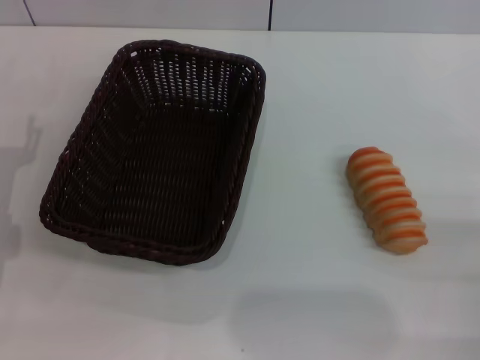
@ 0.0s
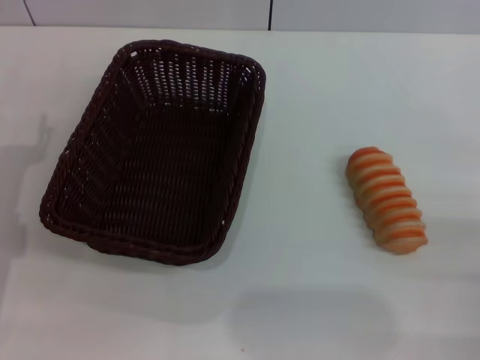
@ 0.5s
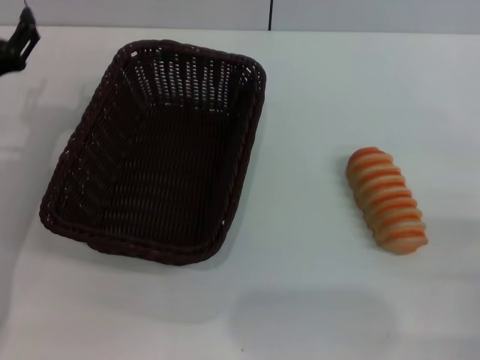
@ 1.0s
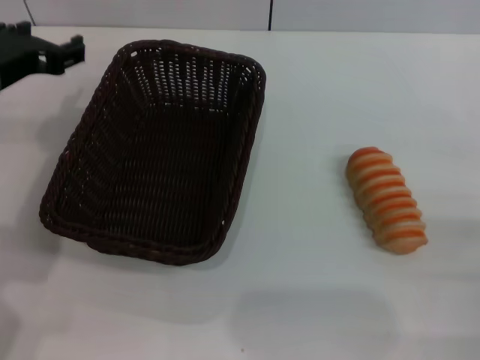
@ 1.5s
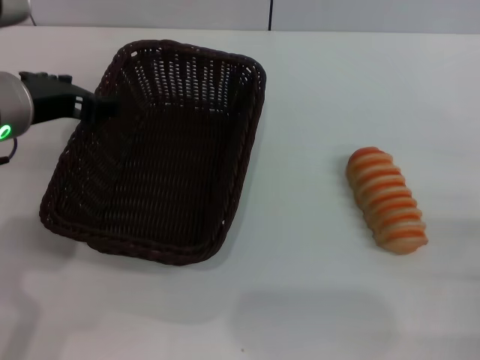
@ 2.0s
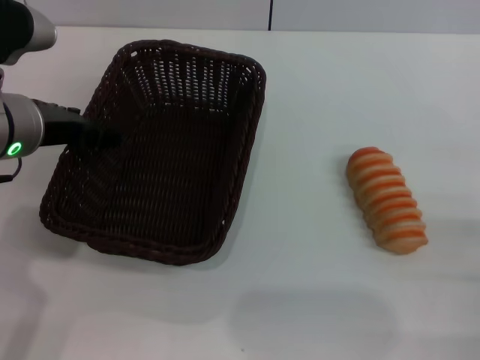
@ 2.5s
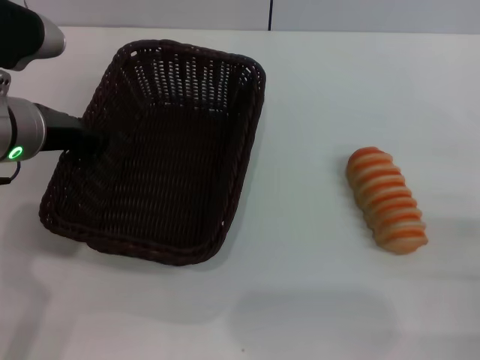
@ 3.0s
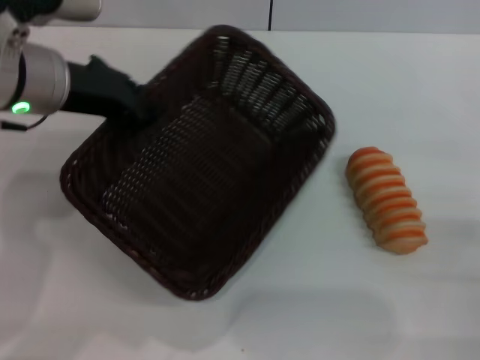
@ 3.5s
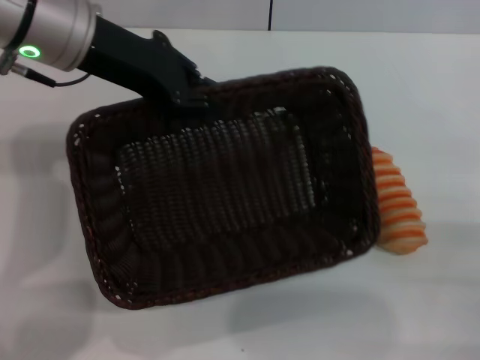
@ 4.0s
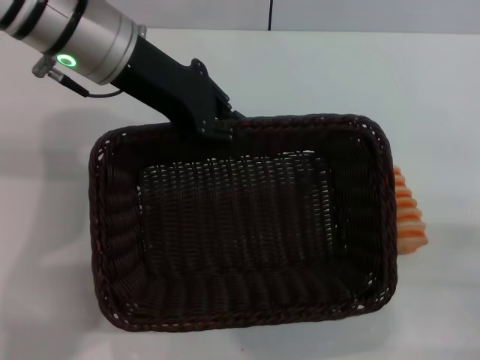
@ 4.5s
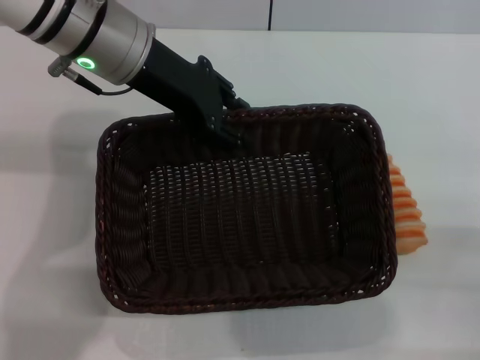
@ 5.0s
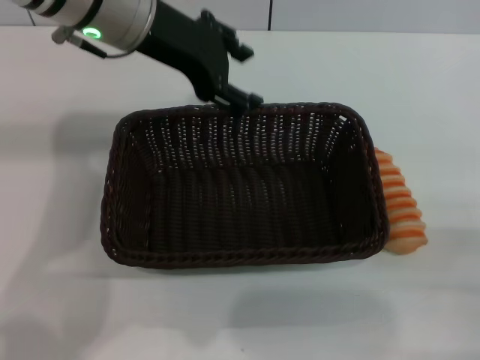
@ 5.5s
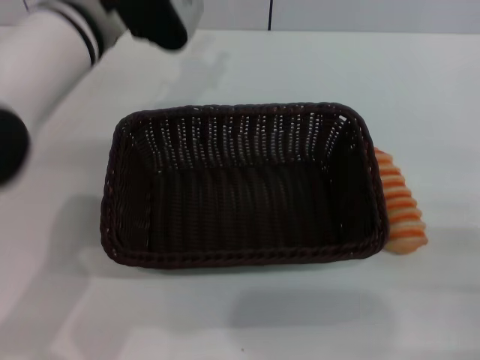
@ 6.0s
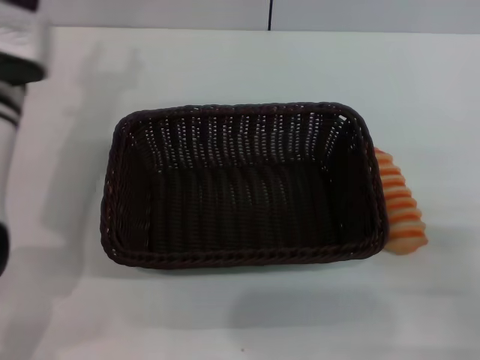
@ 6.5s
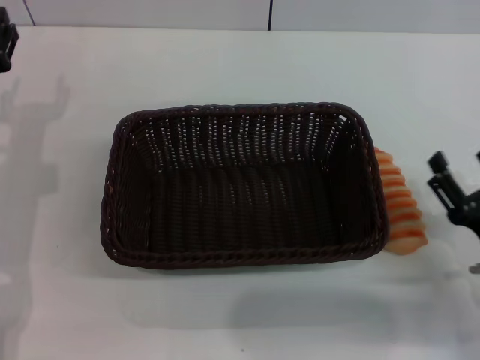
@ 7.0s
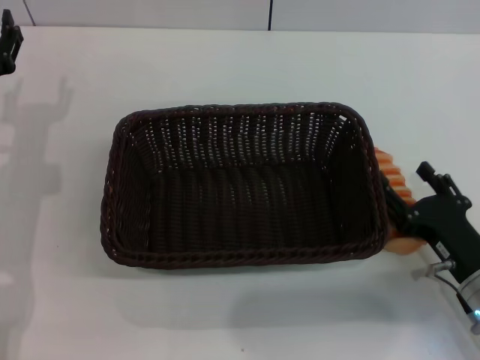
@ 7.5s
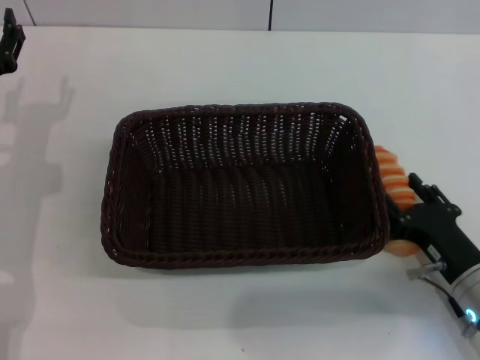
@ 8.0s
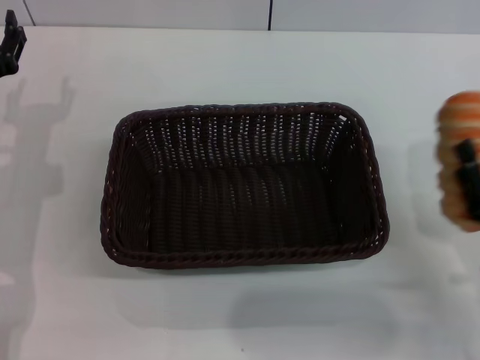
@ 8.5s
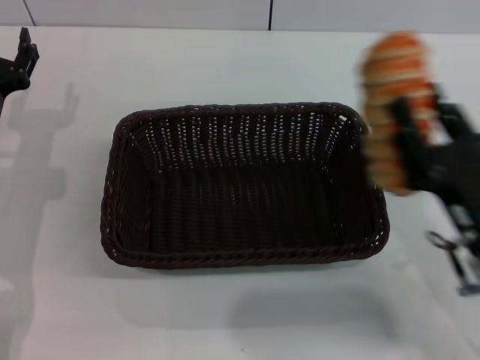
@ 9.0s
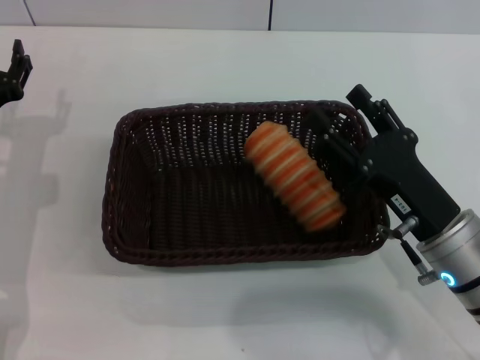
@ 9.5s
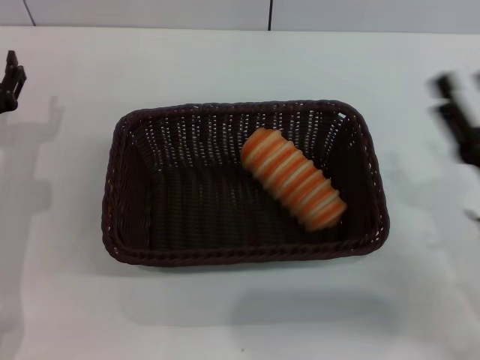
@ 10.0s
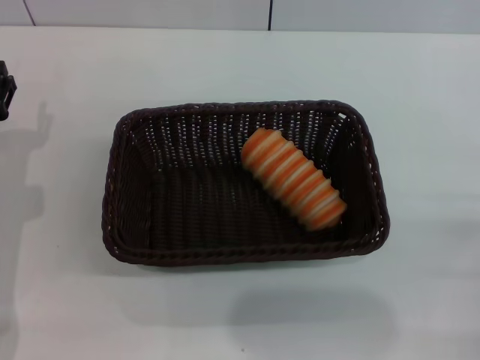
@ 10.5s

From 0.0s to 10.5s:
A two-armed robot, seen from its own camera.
Step, from 0.0s to 3.5s: Pick up the dark basket with the left gripper.
Step, from 4.0s to 5.0s: Place the dark basket in the center of view with the left gripper.
Step, from 5.5s to 8.0s: Pick up the long bread with the right gripper.
Step, from 8.5s to 9.5s: Place the long bread into the dark basket with the right gripper.
From 0.0s to 2.0s: The left gripper heads upward, to the right and forward, covering some 15 cm.
From 2.0s to 4.0s: The left gripper shifts about 10 cm forward and upward, and closes up.
From 4.0s to 6.5s: The left gripper moves downward, about 10 cm, and opens.
From 6.5s to 8.5s: The right gripper closes. The left gripper heads downward and to the left, covering approximately 10 cm.
From 8.5s to 10.5s: The right gripper travels to the right by about 5 cm, and opens.
